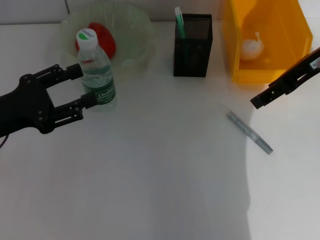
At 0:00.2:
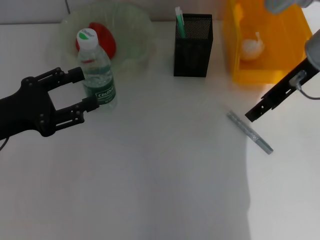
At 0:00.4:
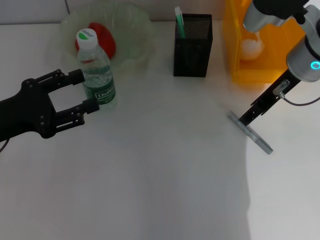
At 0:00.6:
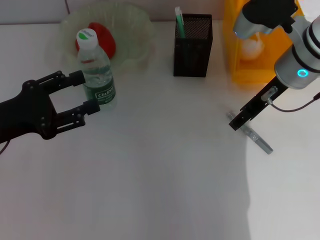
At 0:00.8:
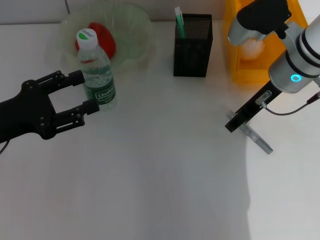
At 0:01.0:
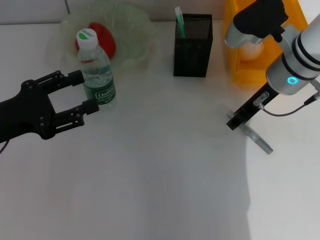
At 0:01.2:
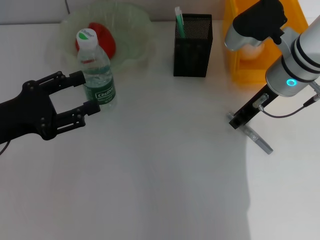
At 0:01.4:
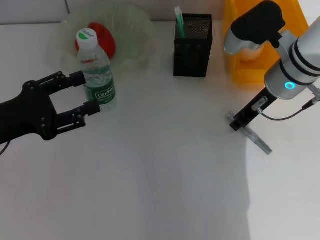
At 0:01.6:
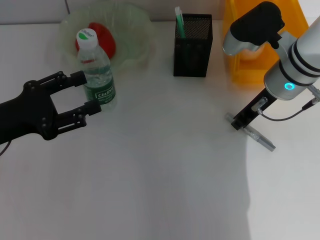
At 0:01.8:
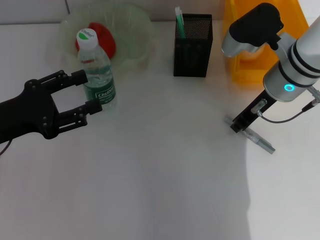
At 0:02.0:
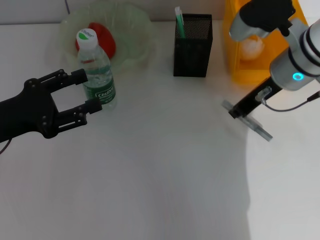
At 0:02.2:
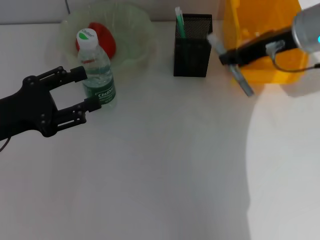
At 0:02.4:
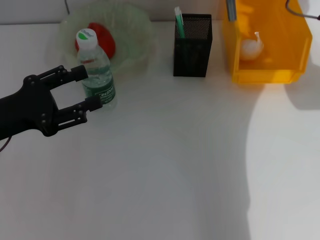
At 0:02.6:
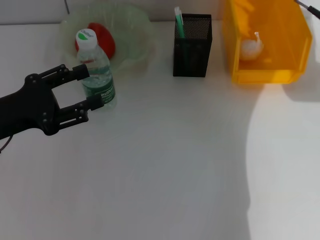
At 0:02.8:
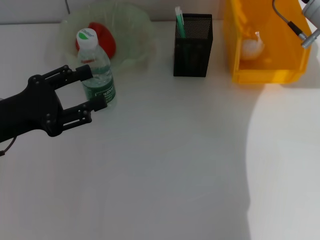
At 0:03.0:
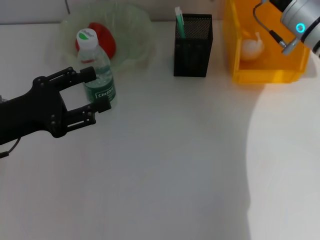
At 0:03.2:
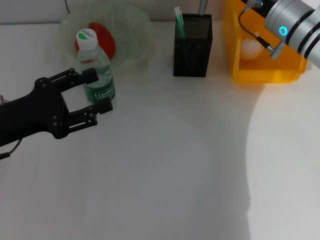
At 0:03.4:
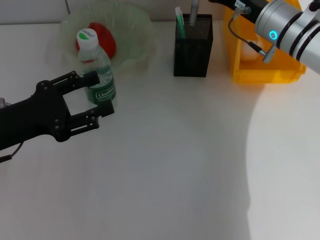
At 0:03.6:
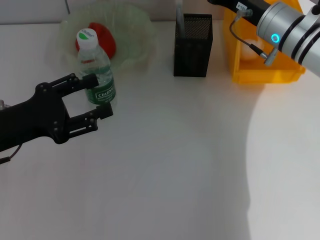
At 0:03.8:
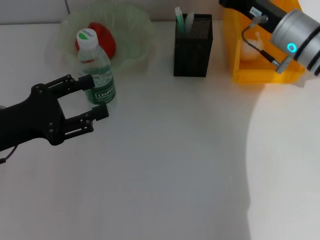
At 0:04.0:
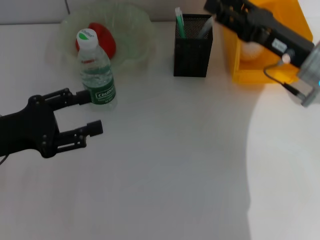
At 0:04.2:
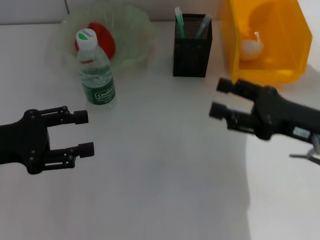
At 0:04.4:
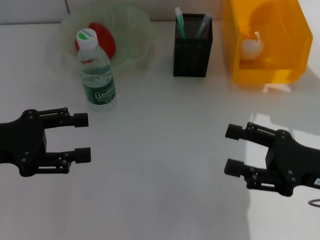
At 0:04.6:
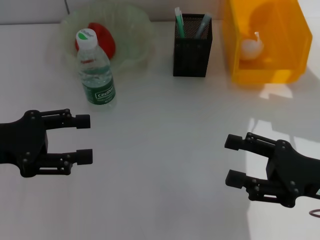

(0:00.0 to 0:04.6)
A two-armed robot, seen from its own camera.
Step, 0:00.0 - 0:01.6: Grab the gray glue with the right hand.
Step, 0:01.8 - 0:03.4: Place the gray glue into the pen holder with the right hand.
0:00.0 - 0:01.6: The right gripper moves downward and to the left, some 10 cm, and closes.
0:01.6 - 0:03.0: The right gripper reaches roughly 10 cm upward, then returns.
0:03.0 - 0:04.6: The right gripper travels backward by approximately 20 cm, and opens.

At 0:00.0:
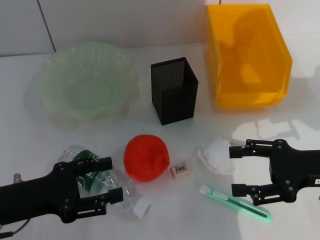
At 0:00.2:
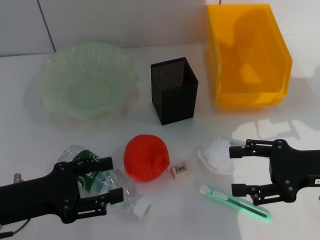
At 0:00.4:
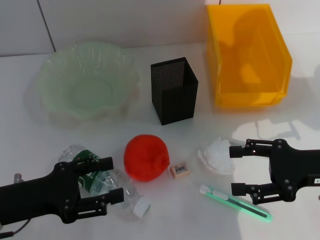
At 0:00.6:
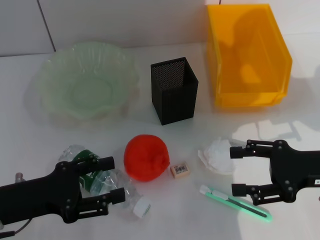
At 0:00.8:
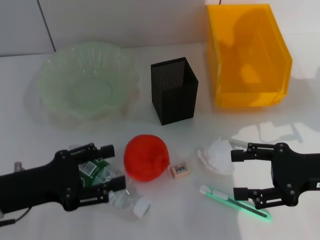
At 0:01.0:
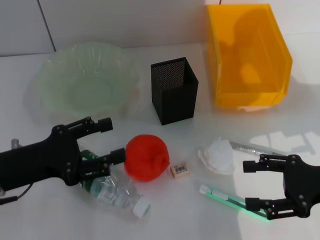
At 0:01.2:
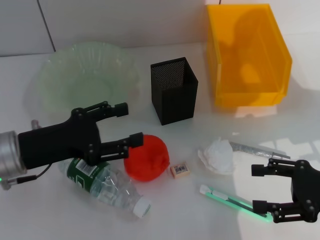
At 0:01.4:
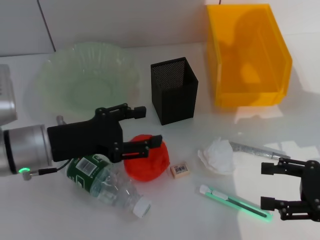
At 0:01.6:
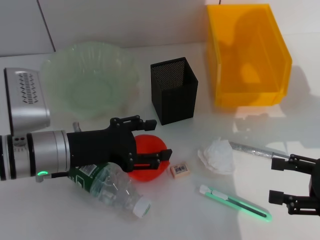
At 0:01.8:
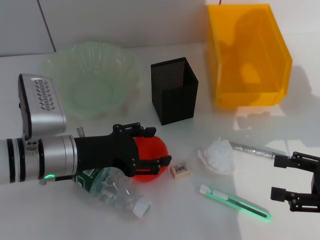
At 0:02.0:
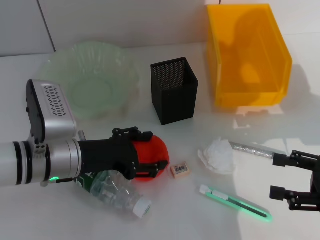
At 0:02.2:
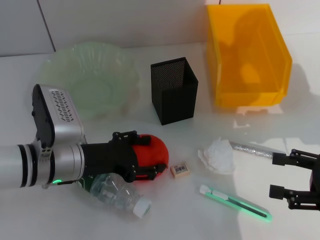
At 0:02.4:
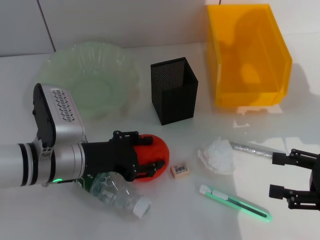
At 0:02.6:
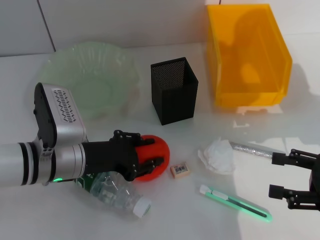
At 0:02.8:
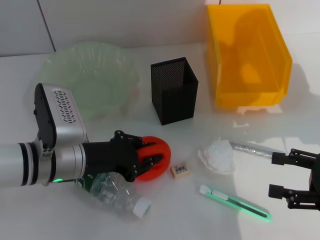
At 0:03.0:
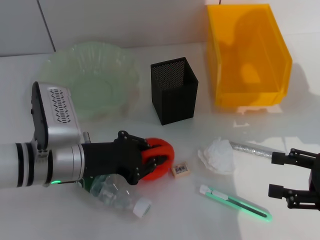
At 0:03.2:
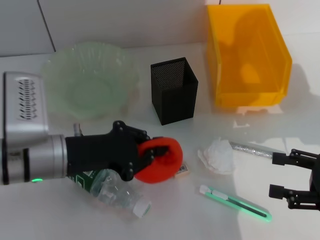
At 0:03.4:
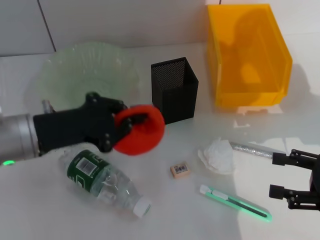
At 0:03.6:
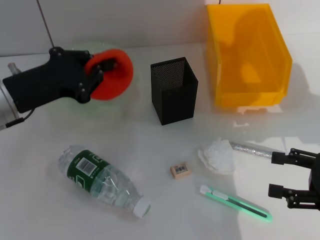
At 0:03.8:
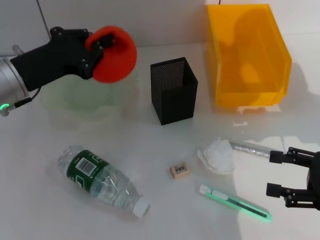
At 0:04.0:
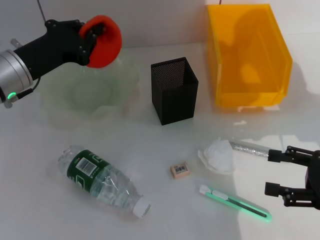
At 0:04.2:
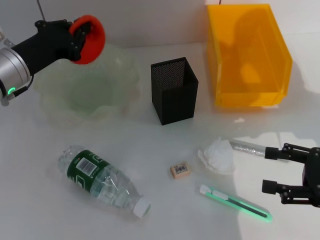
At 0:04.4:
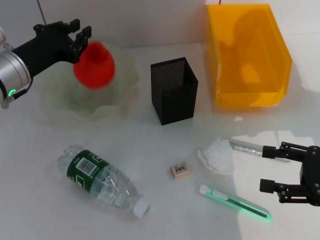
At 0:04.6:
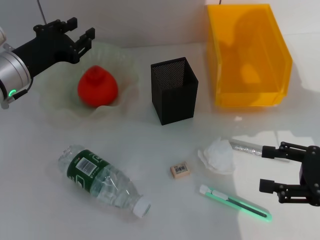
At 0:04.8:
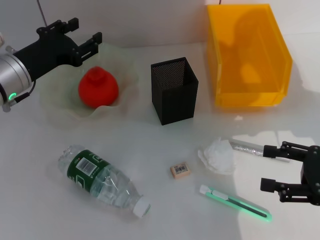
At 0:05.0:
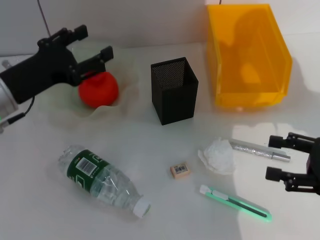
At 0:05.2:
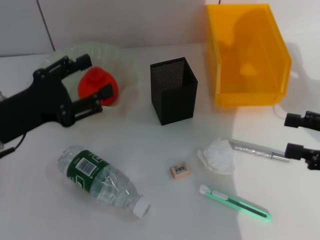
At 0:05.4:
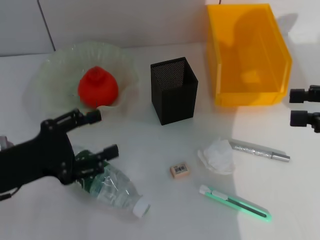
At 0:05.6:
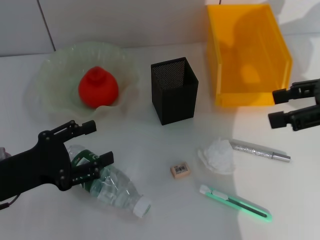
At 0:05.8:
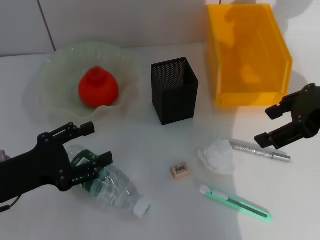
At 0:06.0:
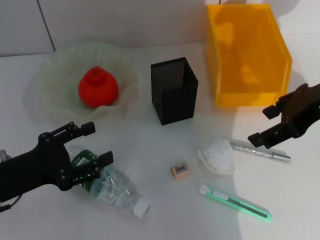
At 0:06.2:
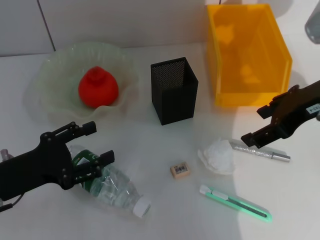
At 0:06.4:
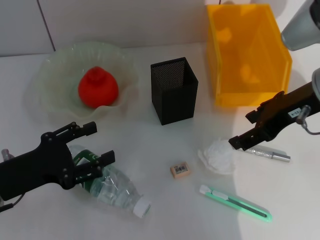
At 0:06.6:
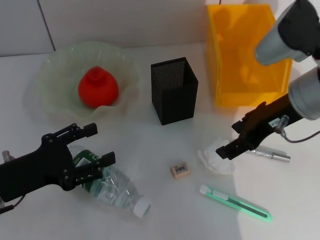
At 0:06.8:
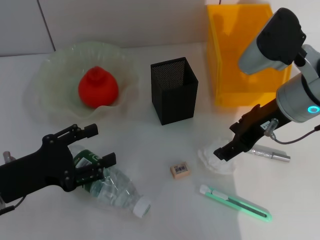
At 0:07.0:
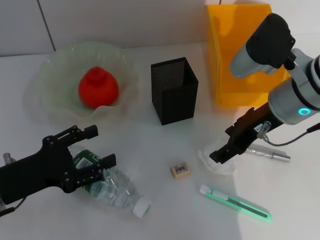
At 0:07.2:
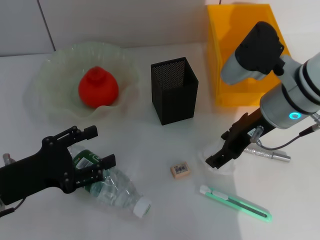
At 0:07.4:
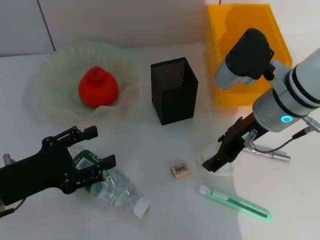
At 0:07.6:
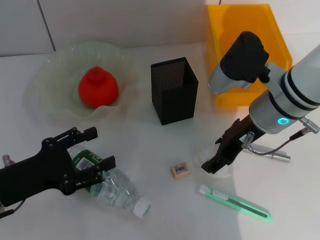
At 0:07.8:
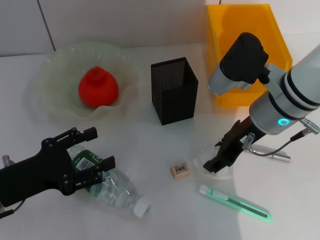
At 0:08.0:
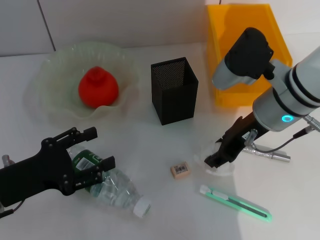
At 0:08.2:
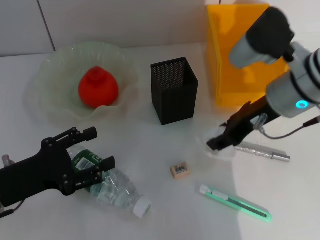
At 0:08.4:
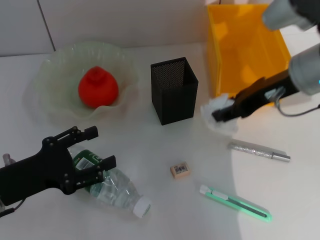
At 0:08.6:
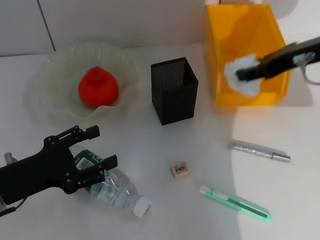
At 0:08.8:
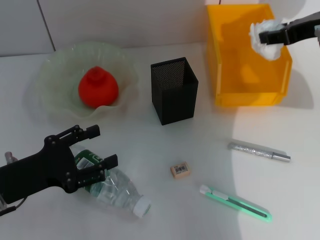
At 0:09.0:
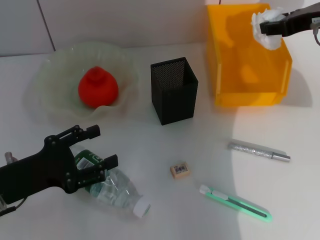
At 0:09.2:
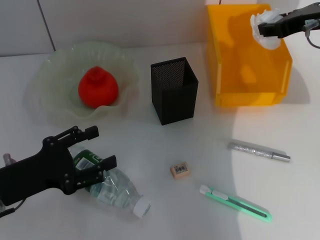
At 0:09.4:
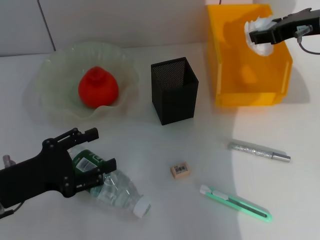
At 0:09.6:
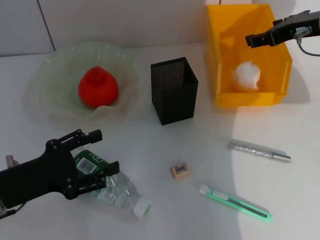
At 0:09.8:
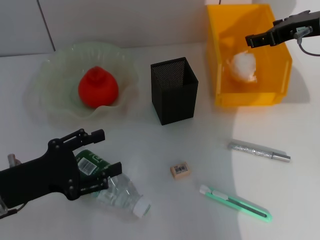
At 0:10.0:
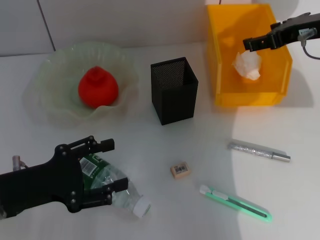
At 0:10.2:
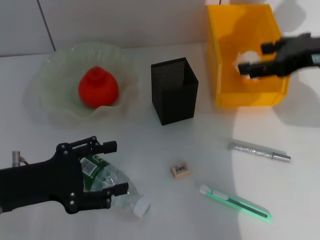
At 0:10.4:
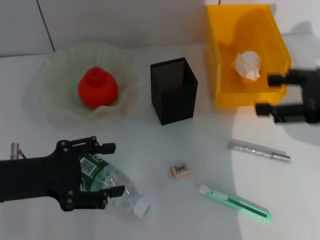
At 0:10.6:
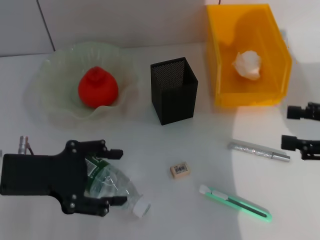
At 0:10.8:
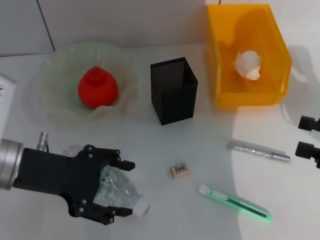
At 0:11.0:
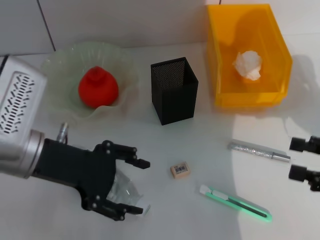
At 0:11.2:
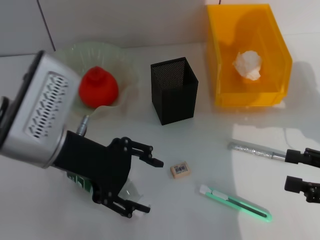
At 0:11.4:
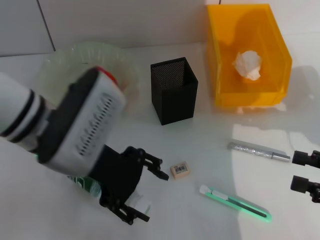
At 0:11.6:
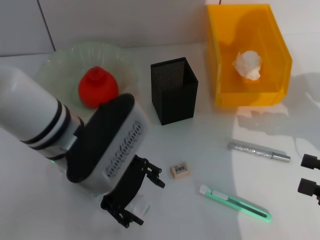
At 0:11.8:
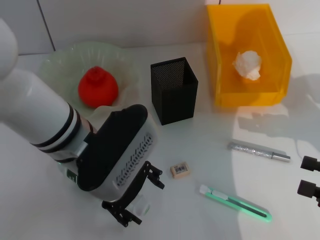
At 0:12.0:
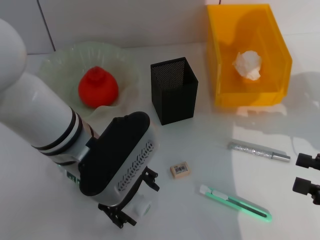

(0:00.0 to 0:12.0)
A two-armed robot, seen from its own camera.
Step, 0:00.0 - 0:02.8: Grab the orange with the left hand.
Step, 0:03.0 - 0:04.4: Place the orange into the fruit bowl with the left hand.
Step, 0:04.6 - 0:07.8: Grab the paper ball with the right hand.
Step, 0:08.0 - 0:09.8: Place the paper ball into the trash can with the right hand.
0:00.0 - 0:01.6: The left gripper is displaced to the right and forward by about 10 cm; the right gripper is displaced backward by some 5 cm.
0:01.6 - 0:03.0: The left gripper closes its fingers.
0:03.0 - 0:04.4: The left gripper goes approximately 10 cm forward, to the left and upward, and closes up.
0:04.4 - 0:06.0: The left gripper is displaced backward by some 15 cm, and opens up. Meanwhile the right gripper is displaced upward, to the left and forward by approximately 20 cm.
0:06.0 - 0:07.6: The right gripper travels downward and to the left by some 15 cm.
0:07.6 - 0:09.0: The right gripper is displaced to the right and upward by approximately 15 cm.
0:09.0 - 0:10.4: The right gripper goes about 10 cm backward, and opens.
0:10.4 - 0:12.0: The right gripper travels downward, backward and to the right by some 15 cm; the left gripper is displaced to the right by roughly 15 cm.

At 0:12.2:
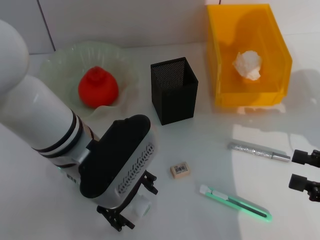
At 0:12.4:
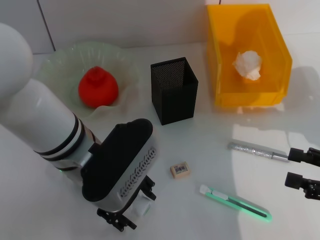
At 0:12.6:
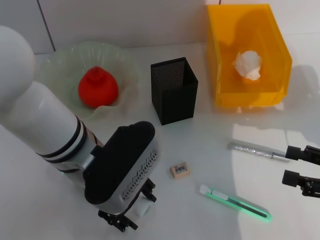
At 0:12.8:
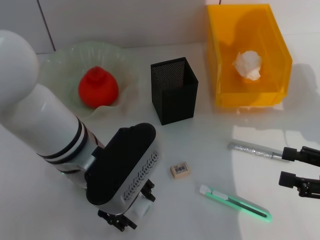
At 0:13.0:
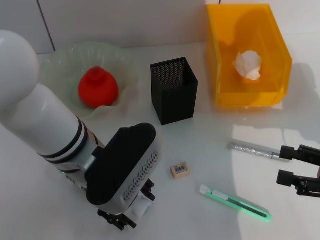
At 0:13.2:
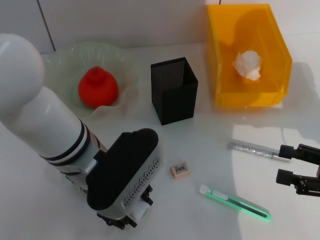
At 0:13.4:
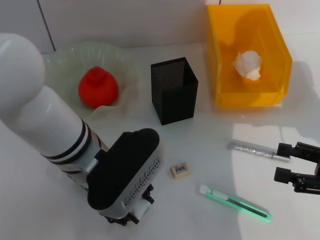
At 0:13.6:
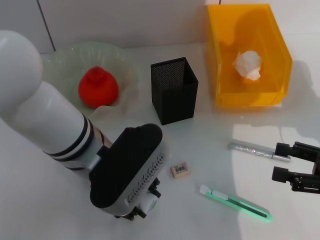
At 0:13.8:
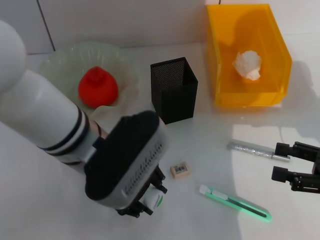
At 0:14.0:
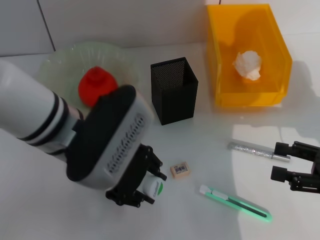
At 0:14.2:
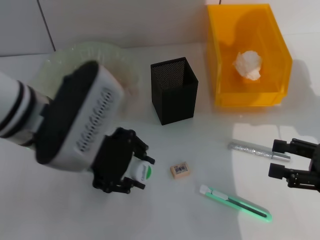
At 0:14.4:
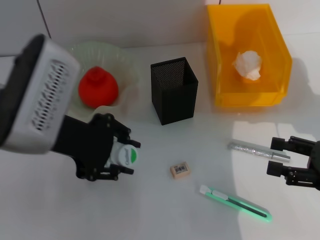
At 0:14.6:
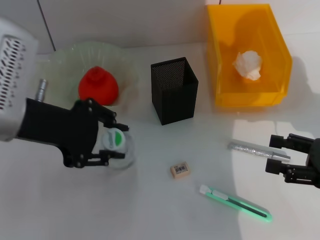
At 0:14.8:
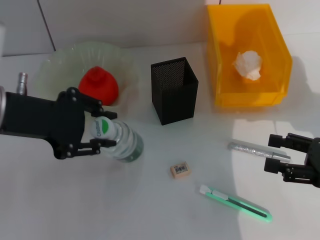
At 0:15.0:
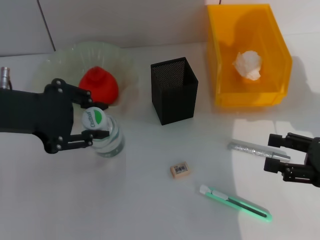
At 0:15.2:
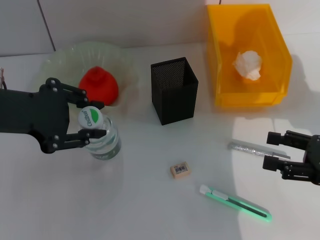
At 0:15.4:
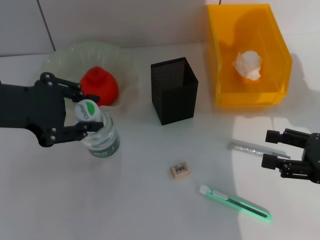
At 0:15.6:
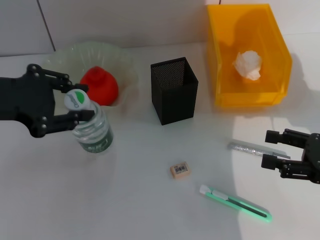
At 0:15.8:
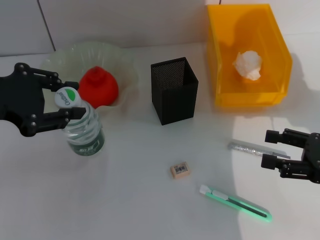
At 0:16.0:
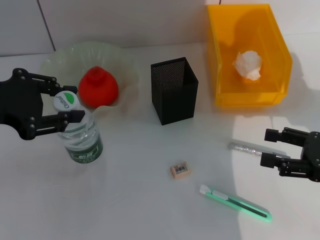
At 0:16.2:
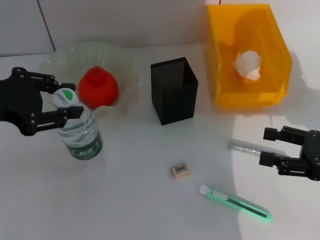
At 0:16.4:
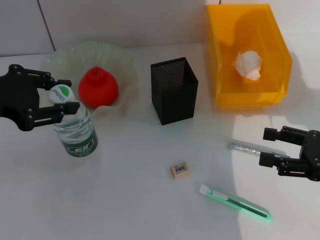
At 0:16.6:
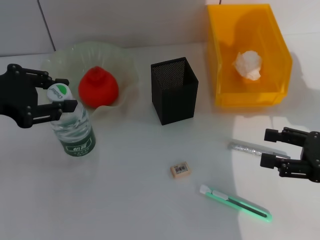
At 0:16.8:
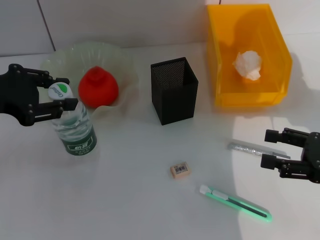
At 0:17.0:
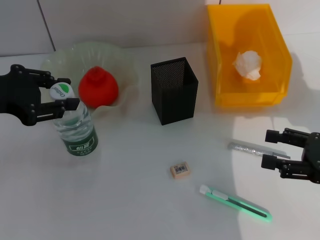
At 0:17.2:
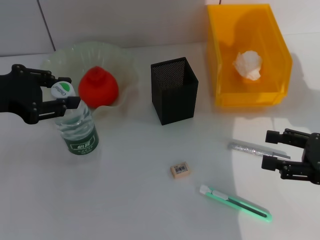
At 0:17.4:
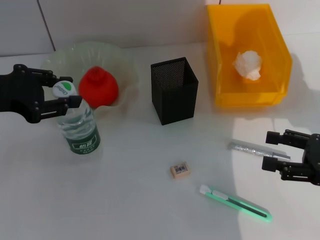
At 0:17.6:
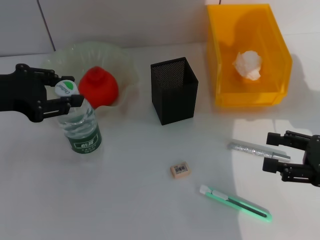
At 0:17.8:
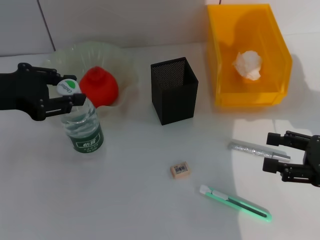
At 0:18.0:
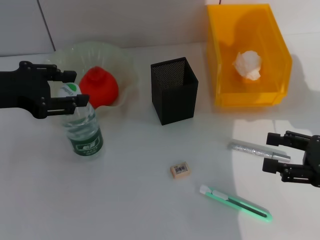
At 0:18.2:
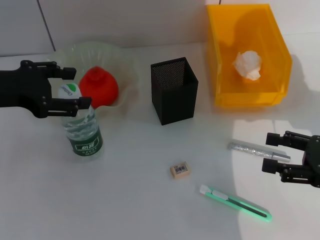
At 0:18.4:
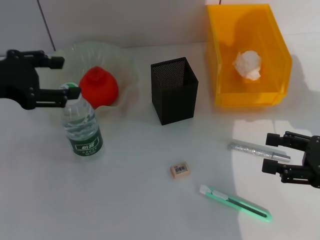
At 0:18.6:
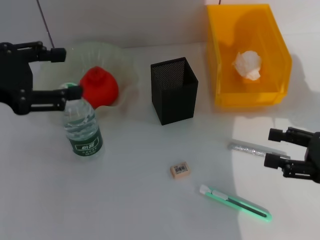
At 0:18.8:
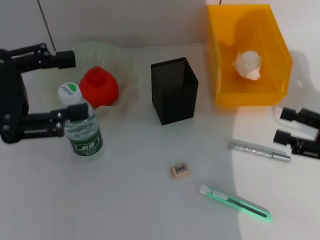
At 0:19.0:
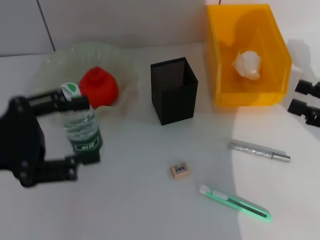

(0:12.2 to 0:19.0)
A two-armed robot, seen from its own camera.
Step, 0:13.6 - 0:18.2: Place the water bottle on the table with the left hand.
0:12.2 - 0:13.6: The left gripper closes.
0:13.6 - 0:15.0: The left gripper moves to the left and upward, approximately 15 cm.
0:16.2 - 0:17.6: There are only small adjustments of the grippers.
0:17.6 - 0:19.0: The left gripper is displaced backward by roughly 10 cm, and opens.
